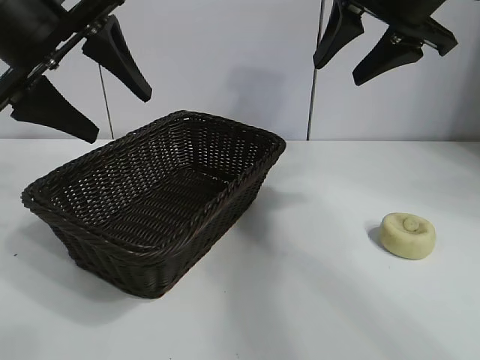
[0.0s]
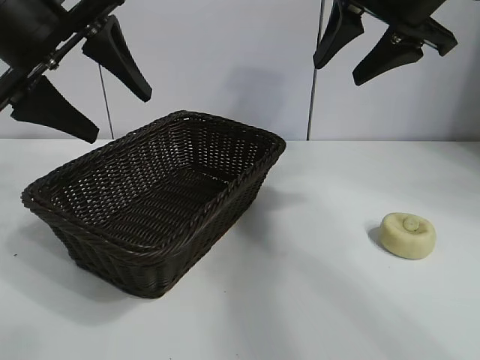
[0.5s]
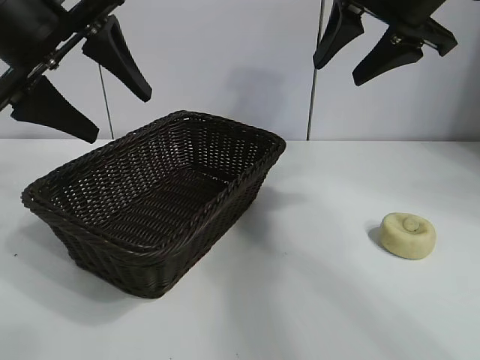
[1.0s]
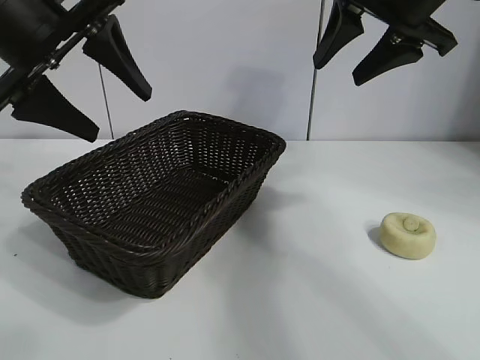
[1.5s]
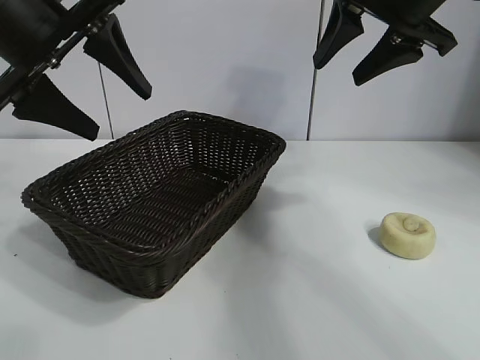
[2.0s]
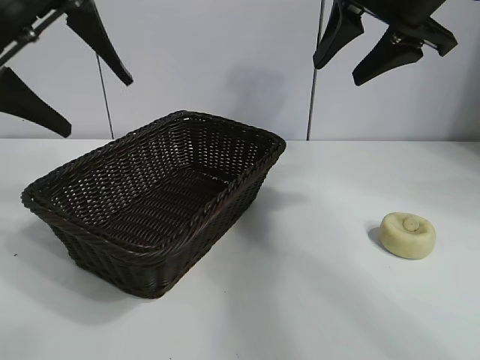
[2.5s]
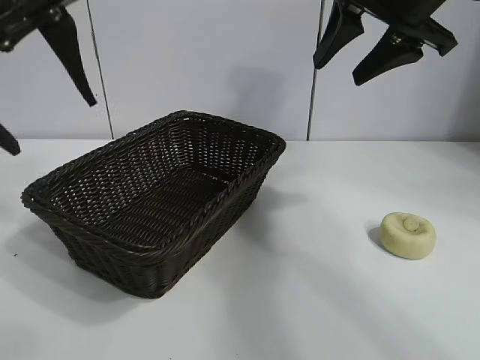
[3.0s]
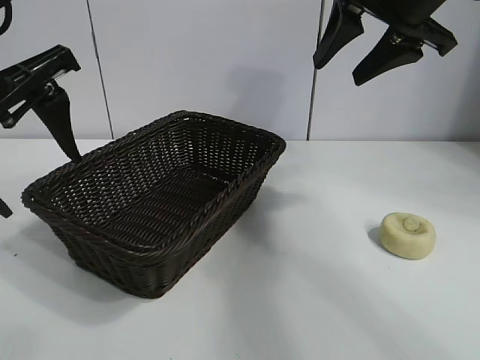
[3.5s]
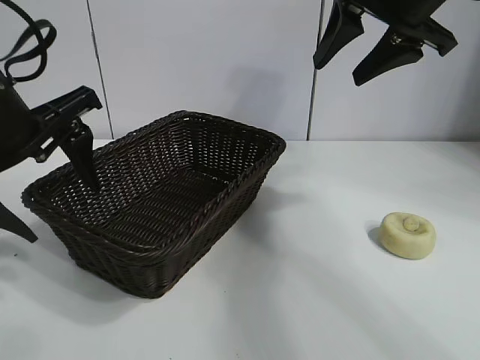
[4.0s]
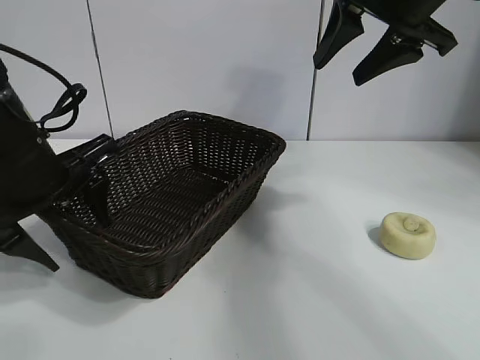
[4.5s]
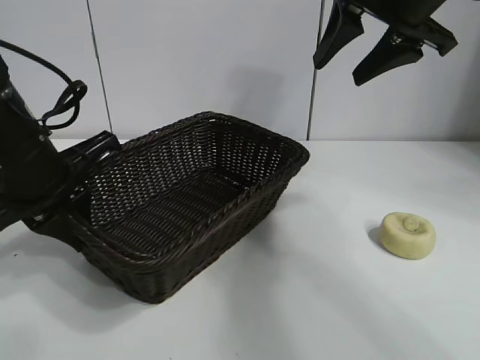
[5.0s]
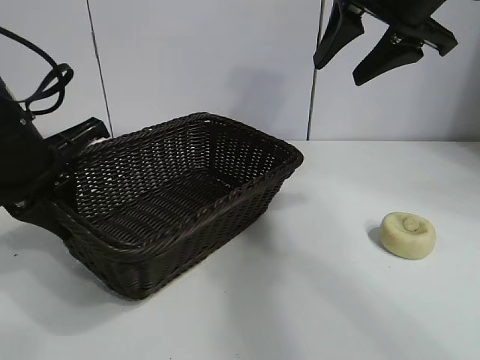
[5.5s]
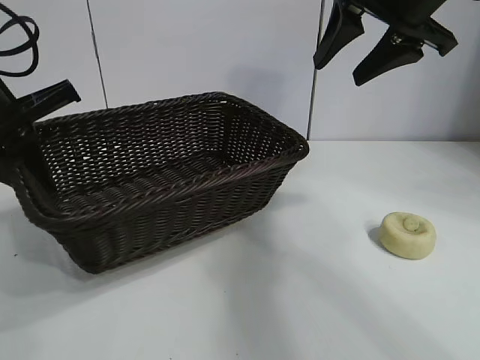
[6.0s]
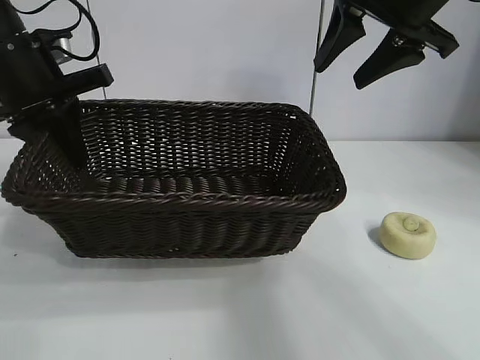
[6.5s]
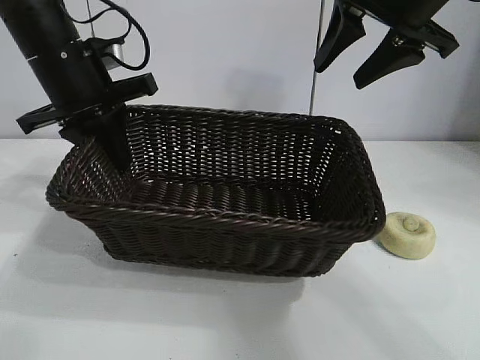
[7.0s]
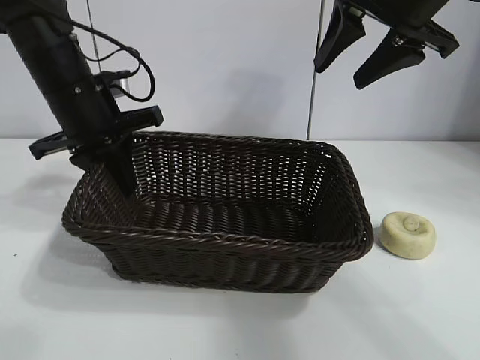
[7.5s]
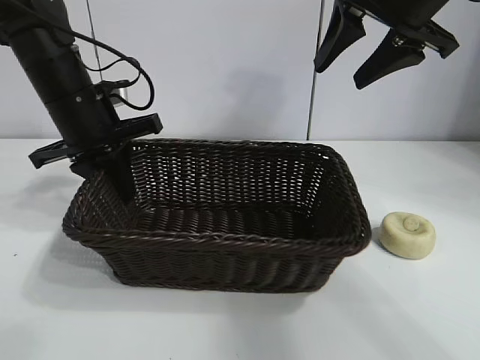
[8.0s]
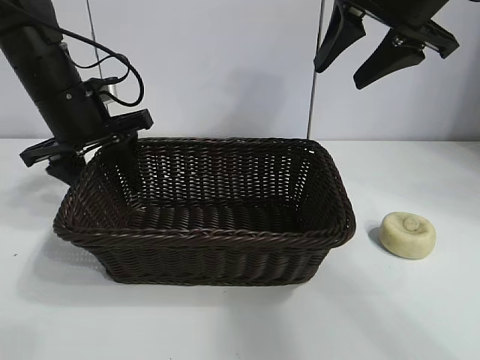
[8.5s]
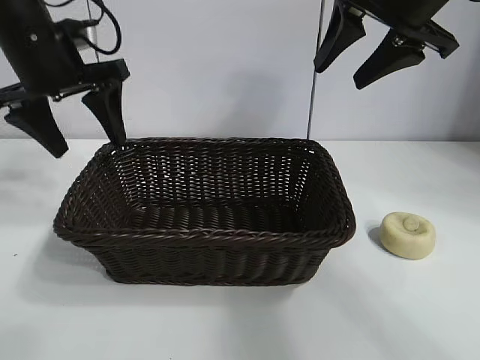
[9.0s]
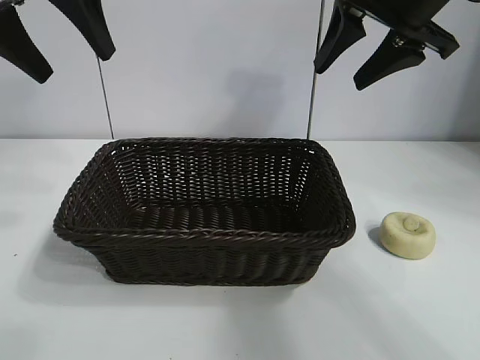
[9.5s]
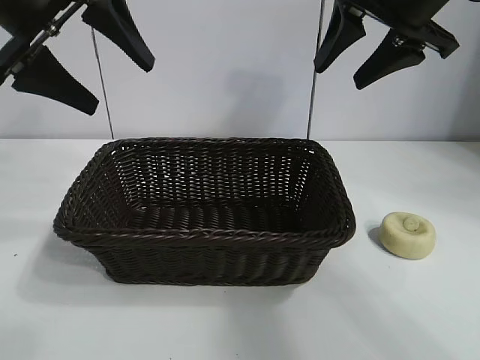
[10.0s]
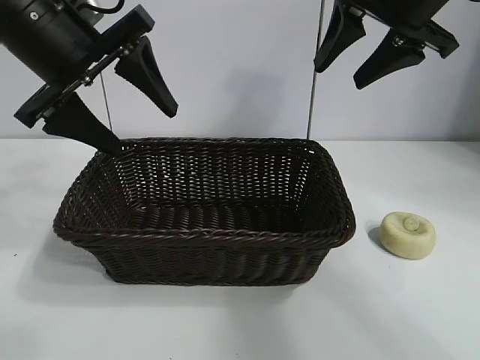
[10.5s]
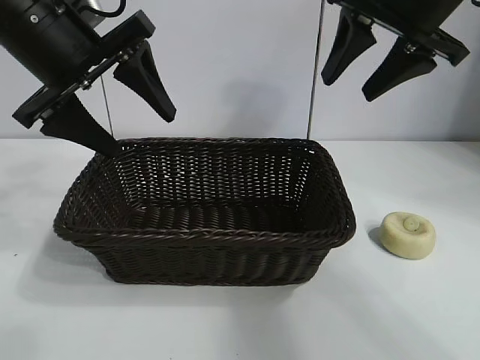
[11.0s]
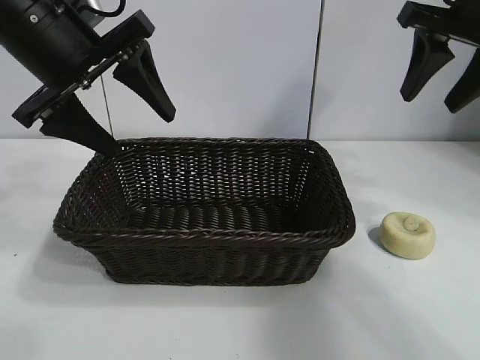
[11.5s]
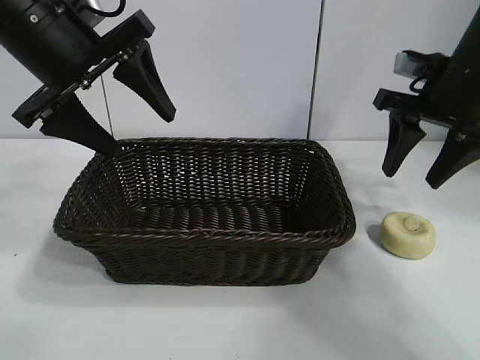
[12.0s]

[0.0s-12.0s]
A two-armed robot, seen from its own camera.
Task of the whole recording: pick up the egg yolk pastry and put it into the basket.
Step, 3.0s to 4.5s: Grasp the basket with left gripper.
Step, 5.0s to 8.5s: Place the basket in the center of view with left gripper.

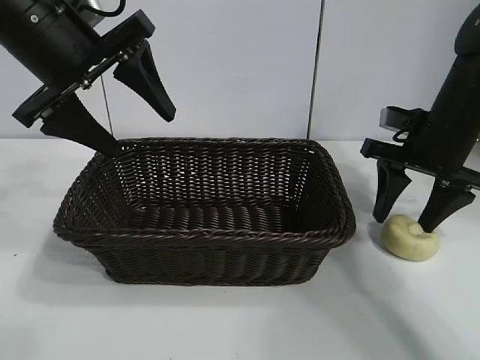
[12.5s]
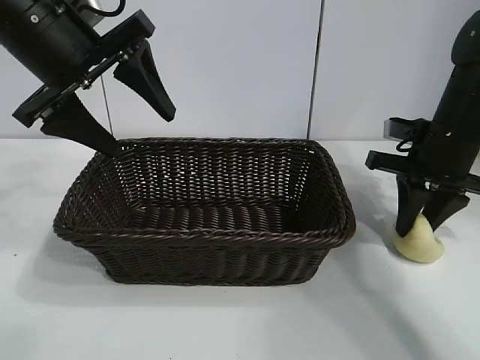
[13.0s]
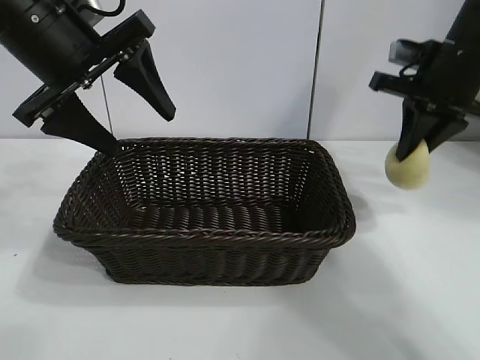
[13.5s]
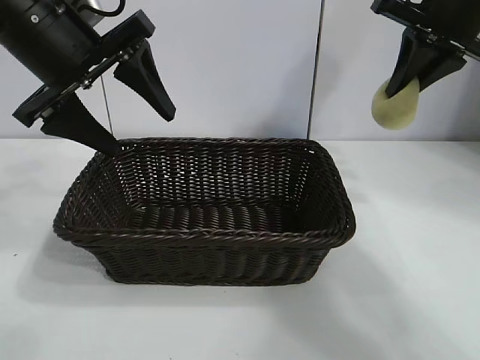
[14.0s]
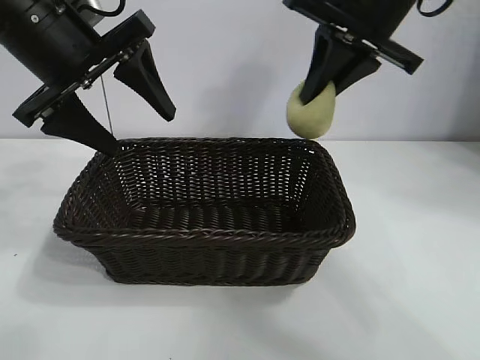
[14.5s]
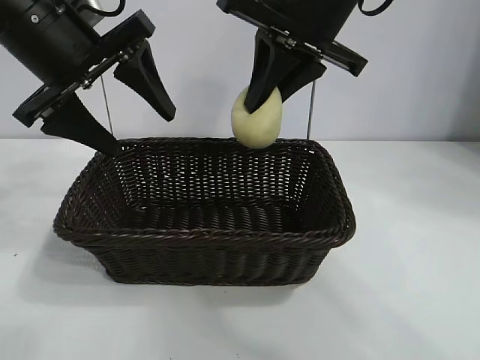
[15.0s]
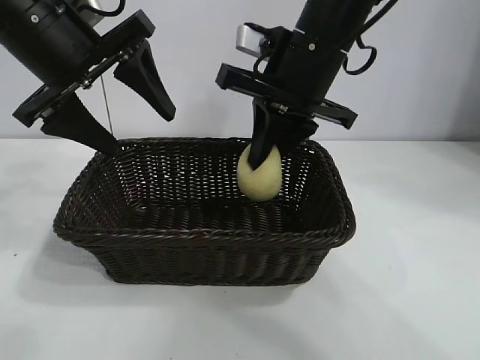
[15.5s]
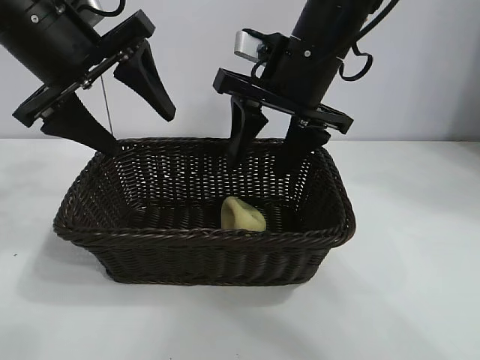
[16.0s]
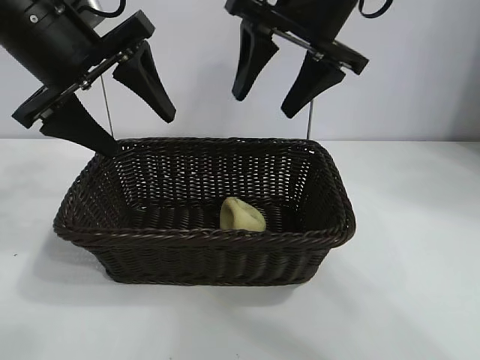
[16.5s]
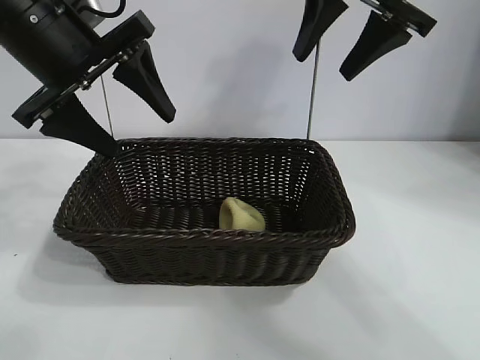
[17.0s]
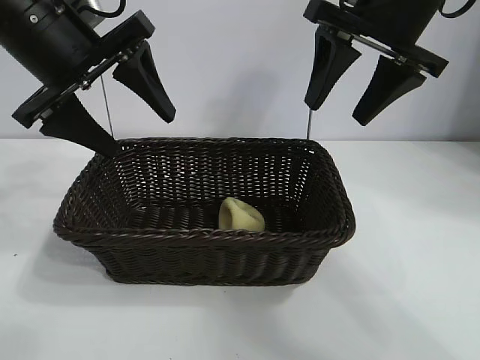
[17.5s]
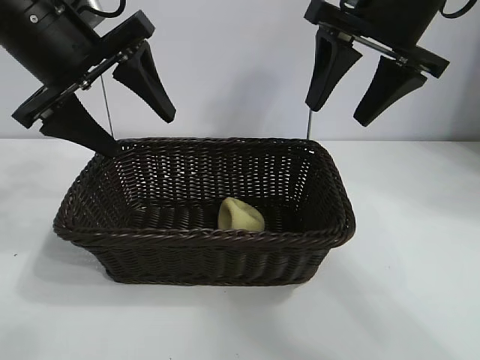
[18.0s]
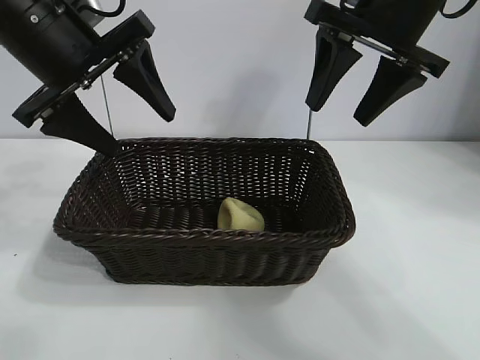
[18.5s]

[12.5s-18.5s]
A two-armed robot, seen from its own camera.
Task of the whole recording: pick up the egg yolk pastry and put it into the basket.
Step, 13.5s to 15.5s: Place the egg yolk pastry in the basket with right gripper.
